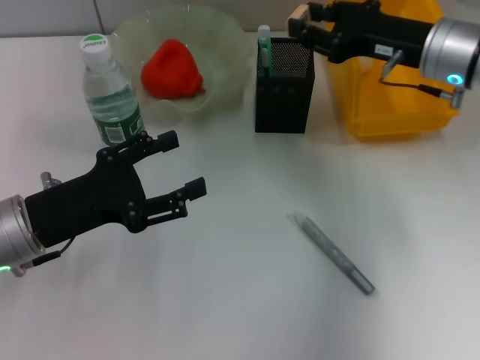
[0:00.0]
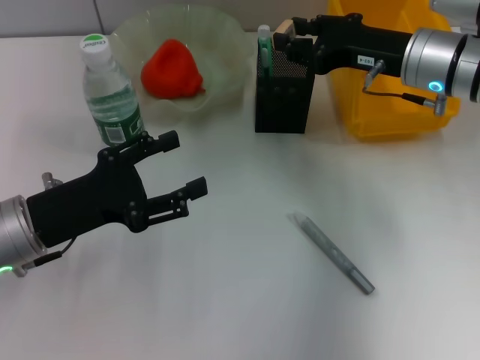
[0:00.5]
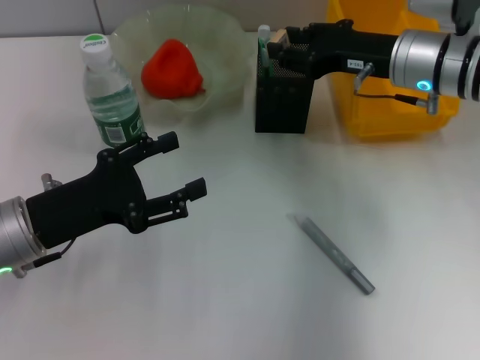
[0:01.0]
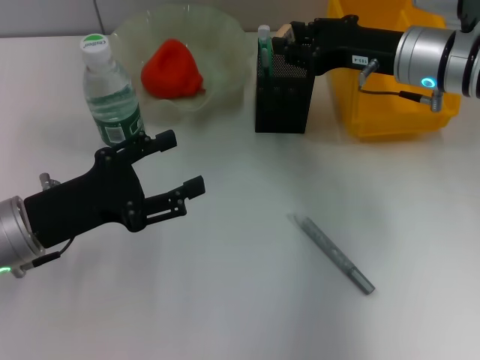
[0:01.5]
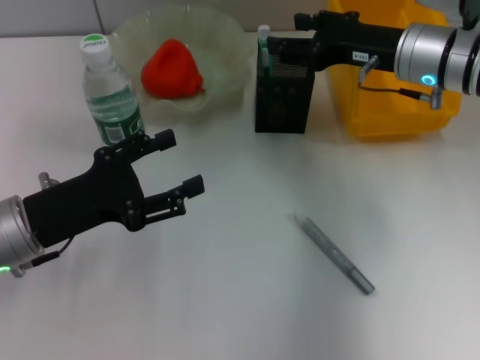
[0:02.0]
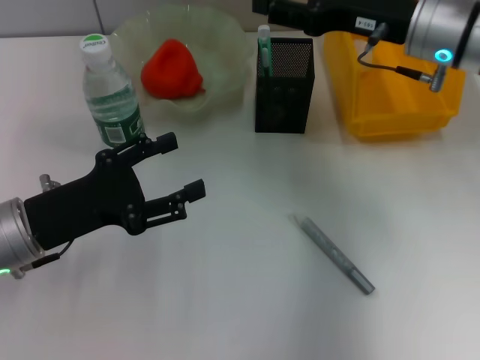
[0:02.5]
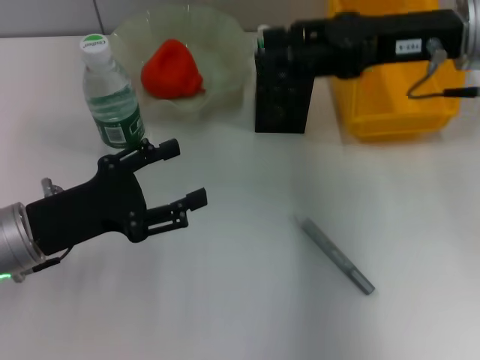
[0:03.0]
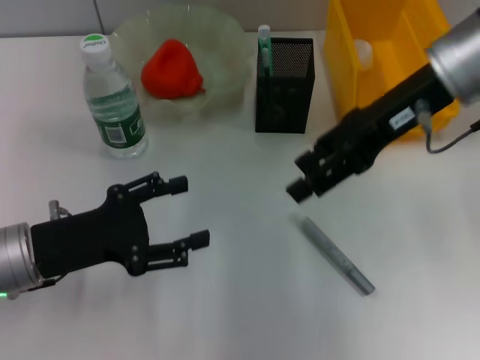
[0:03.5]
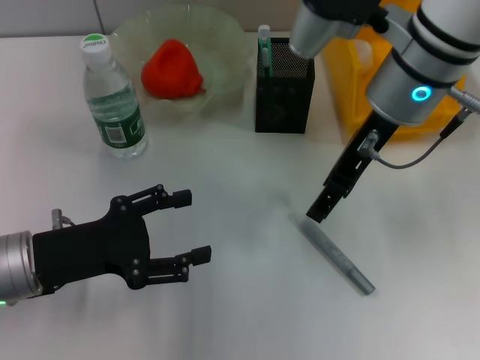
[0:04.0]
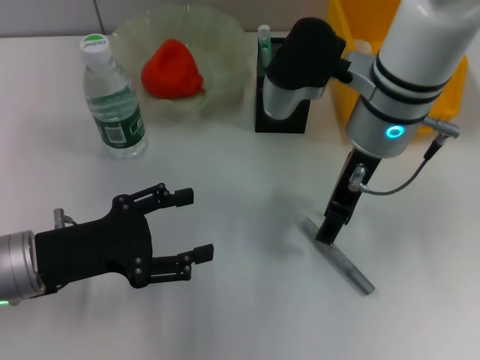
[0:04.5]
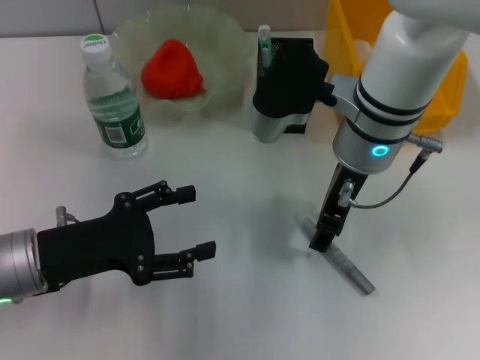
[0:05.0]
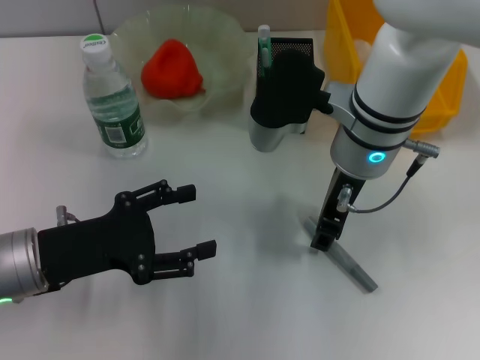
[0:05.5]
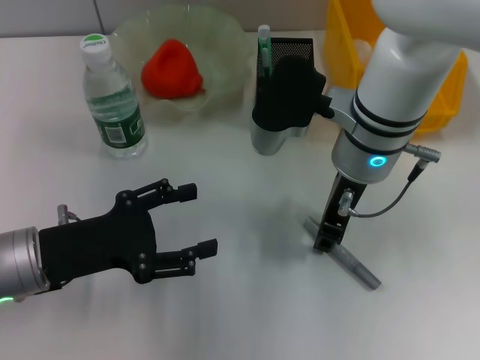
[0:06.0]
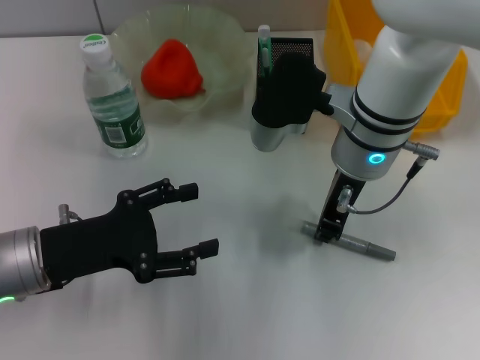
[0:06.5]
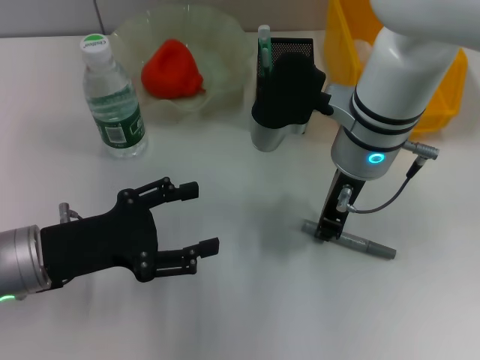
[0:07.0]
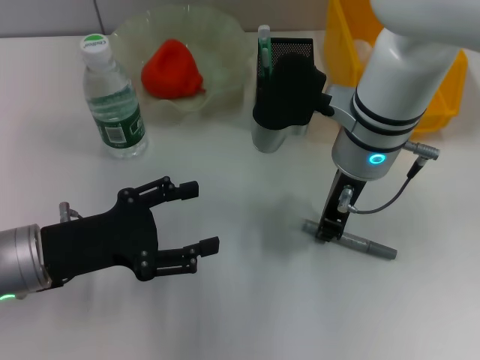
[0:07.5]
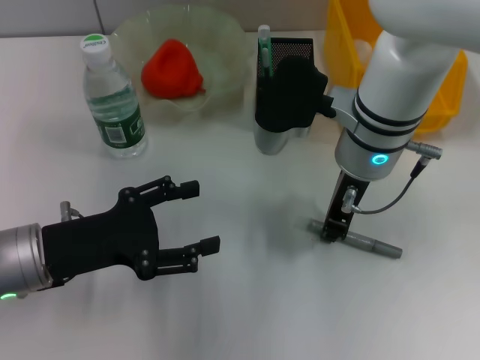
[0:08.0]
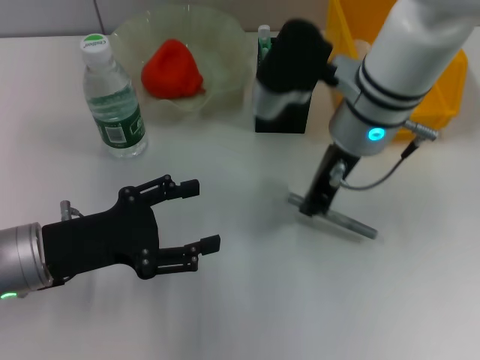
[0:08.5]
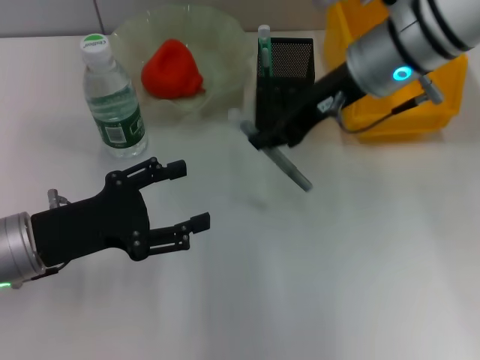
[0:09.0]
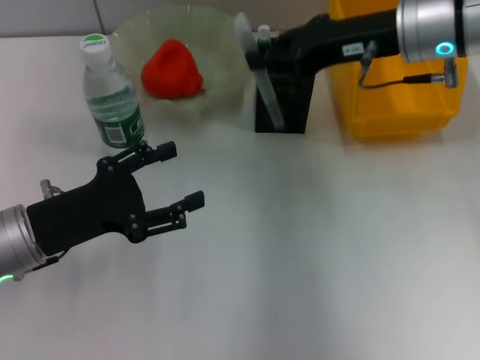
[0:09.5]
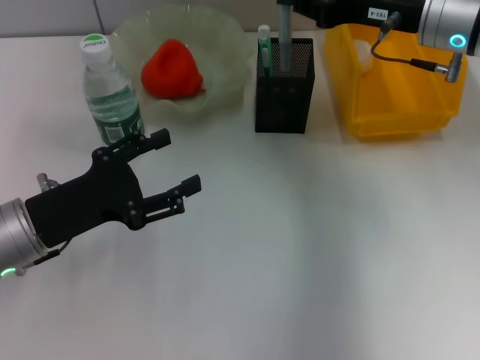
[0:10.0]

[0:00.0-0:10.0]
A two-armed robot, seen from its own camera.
Step, 0:00.0 to 0:02.0: Put the eraser into the pen holder with the right hand.
Step, 0:02.5 to 0:08.0: Grab the gray glue with the right hand.
0:00.0 to 0:02.0: The right gripper opens up.
0:02.0 to 0:04.0: The right gripper heads to the left and upward, covering roughly 10 cm.
0:04.0 to 0:06.0: The right gripper moves downward, about 5 cm.
0:06.0 to 0:08.0: The right gripper closes up.
0:08.0 to 0:10.0: The right gripper shifts roughly 10 cm to the right and forward.

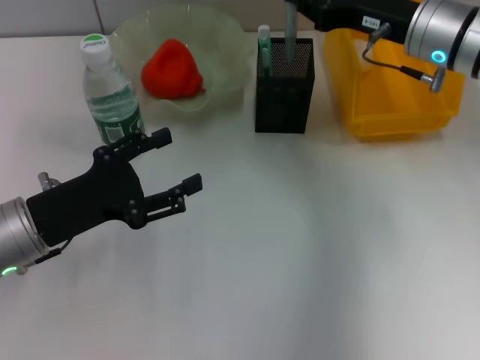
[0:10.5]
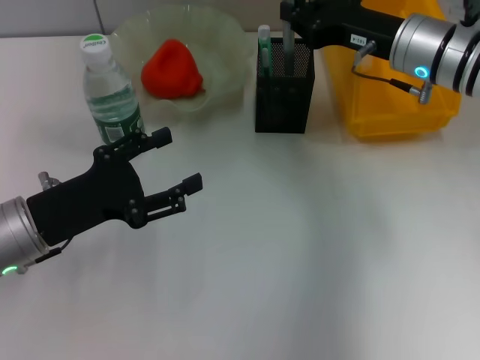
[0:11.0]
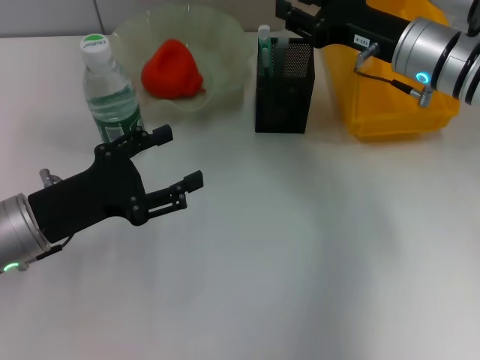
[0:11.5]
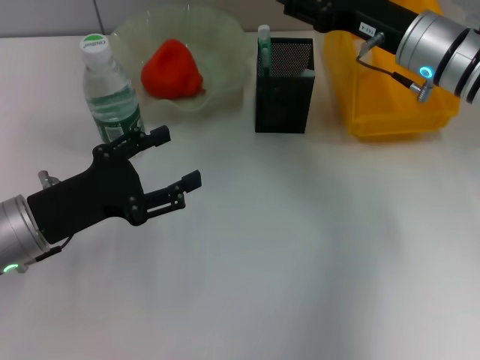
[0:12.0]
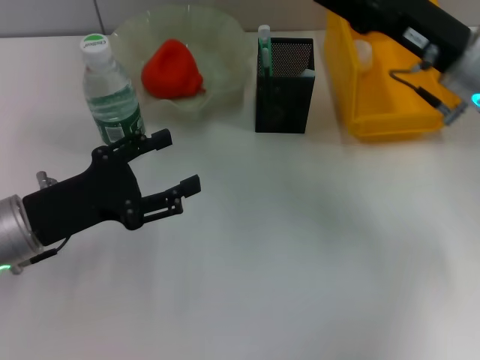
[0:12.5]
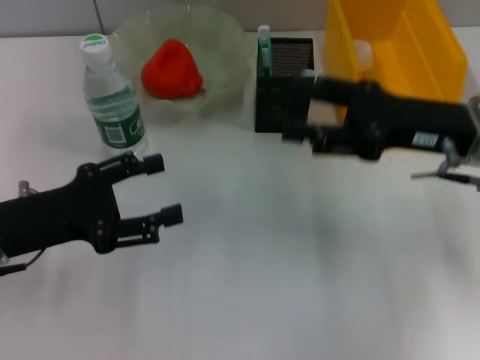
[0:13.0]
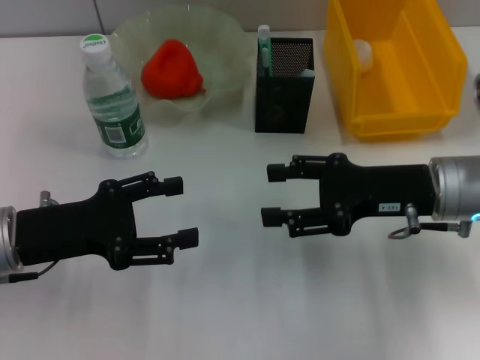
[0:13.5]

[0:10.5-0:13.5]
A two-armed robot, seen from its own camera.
0:10.5 to 0:12.0: The right gripper opens its fingers.
0:12.0 to 0:13.5: The right gripper moves backward, about 10 cm.

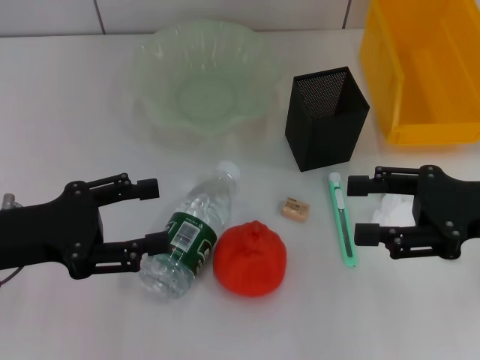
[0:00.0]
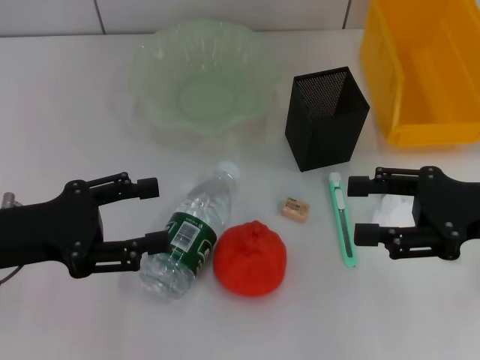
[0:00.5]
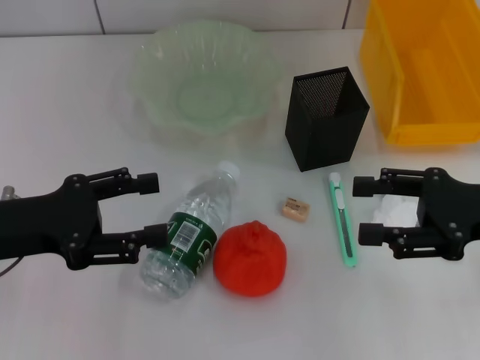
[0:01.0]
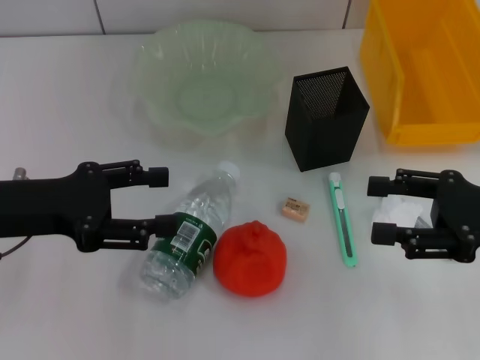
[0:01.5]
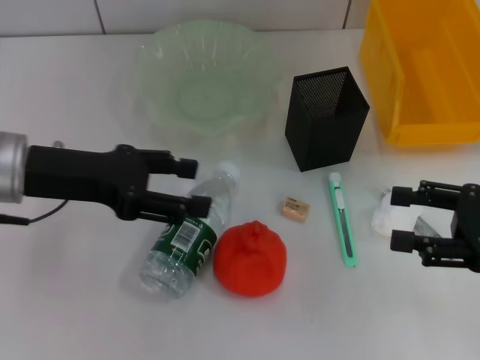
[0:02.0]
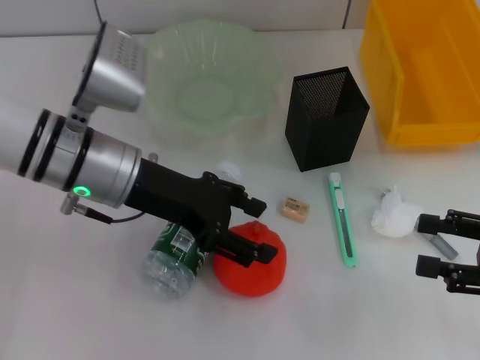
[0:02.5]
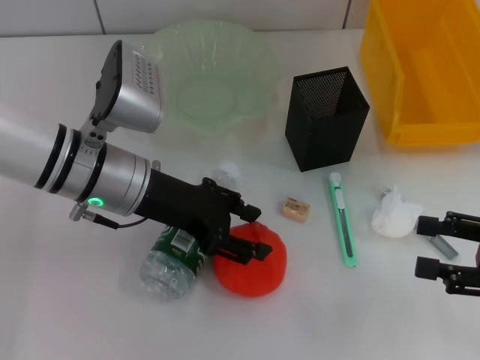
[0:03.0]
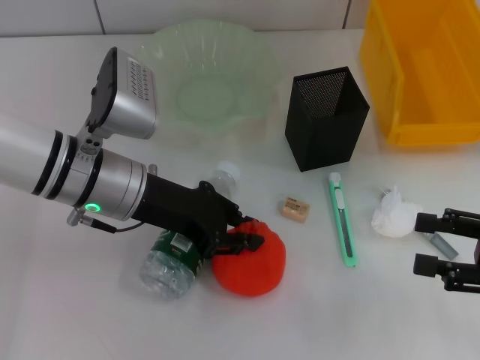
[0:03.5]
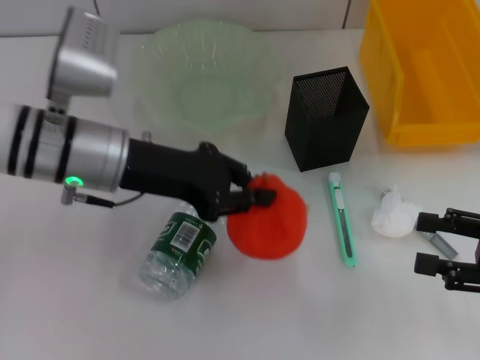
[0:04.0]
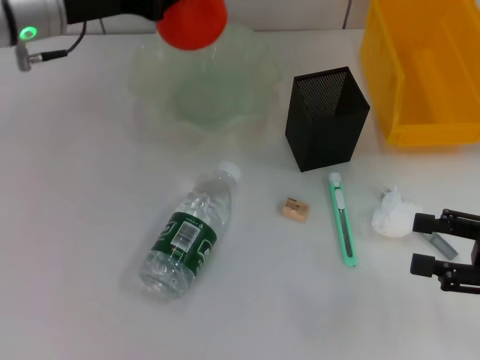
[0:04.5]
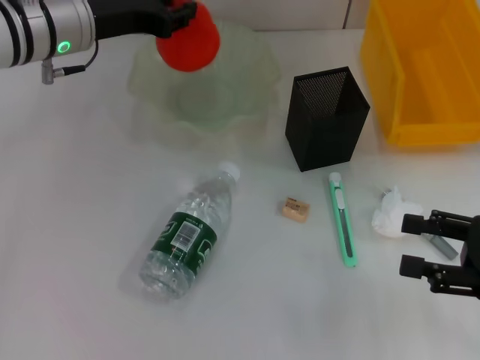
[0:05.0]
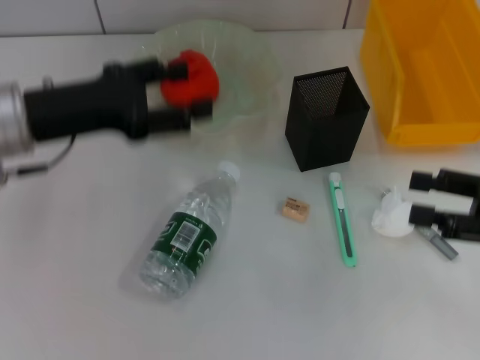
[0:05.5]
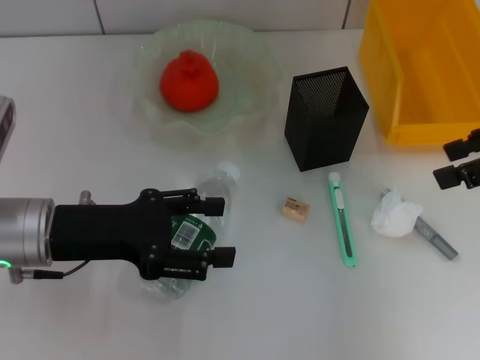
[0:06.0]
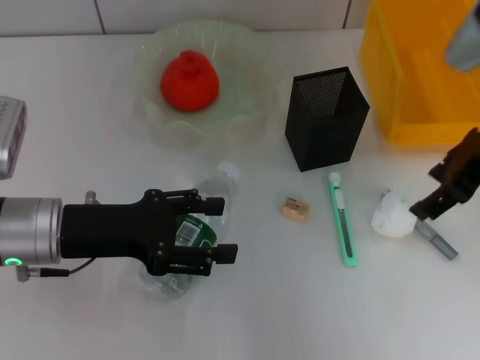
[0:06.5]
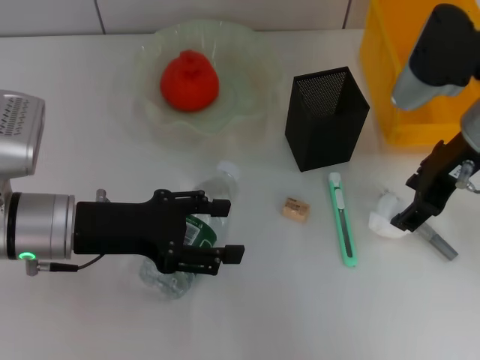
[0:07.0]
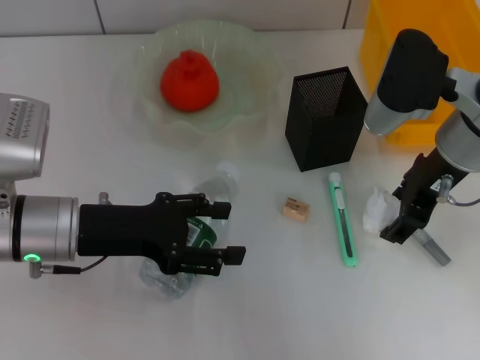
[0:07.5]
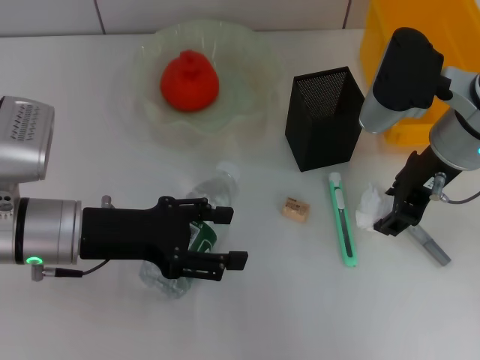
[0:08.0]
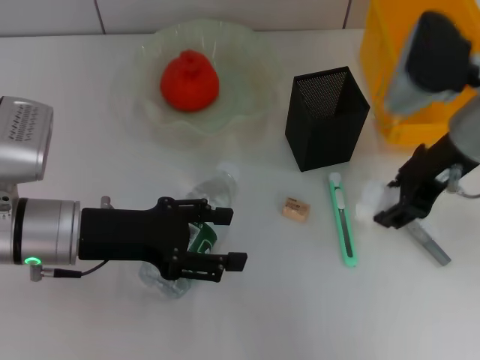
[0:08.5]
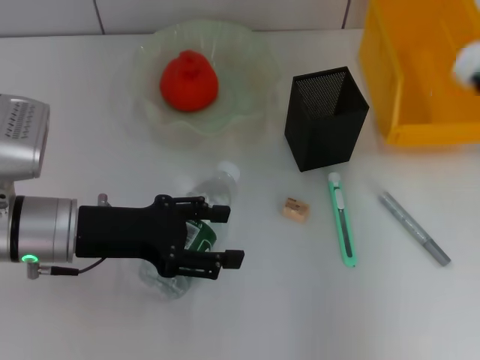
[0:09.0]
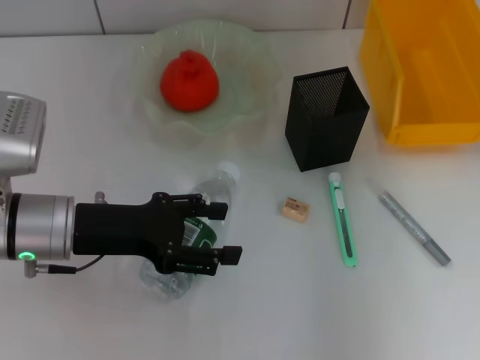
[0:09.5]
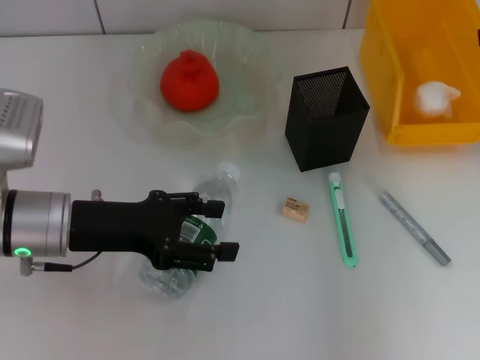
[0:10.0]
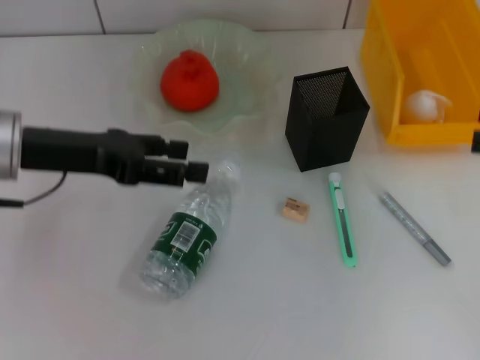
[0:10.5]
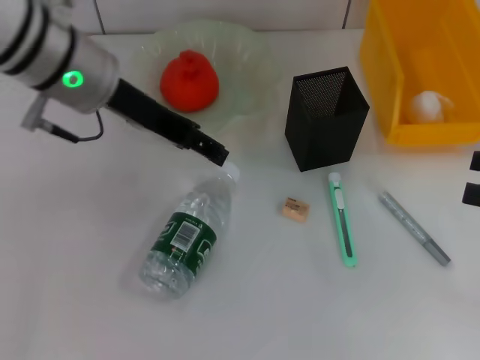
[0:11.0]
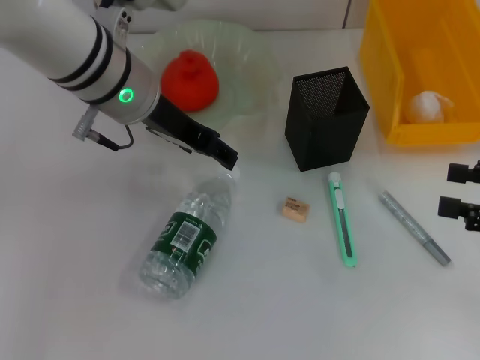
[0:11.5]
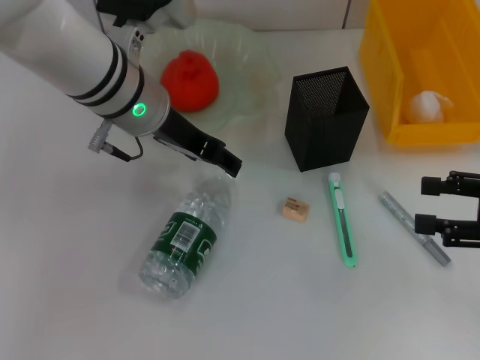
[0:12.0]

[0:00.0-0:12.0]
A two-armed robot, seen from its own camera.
Step, 0:00.0 to 0:03.0: Grab the orange with the left hand.
Step, 0:03.5 to 0:05.0: Place the orange into the fruit bowl with the left hand.
Step, 0:05.5 to 0:07.5: Grab the paper ball with the right hand.
Step, 0:08.0 to 0:10.0: Place the paper ball into the trash can with the right hand.
0:00.0 to 0:02.0: The left gripper heads forward, covering some 5 cm.
0:02.0 to 0:04.0: The left gripper moves to the right, some 10 cm, and closes its fingers.
0:04.0 to 0:06.0: The right gripper shifts some 15 cm upward and forward. Meanwhile the left gripper goes approximately 10 cm to the left and backward, and opens.
0:06.0 to 0:08.0: The right gripper is displaced to the left and downward by approximately 15 cm.
0:08.0 to 0:10.0: The right gripper is displaced to the right and upward by about 20 cm.
0:10.0 to 0:12.0: The right gripper moves downward and backward, about 15 cm; the left gripper heads forward, to the right and upward, covering some 15 cm.
